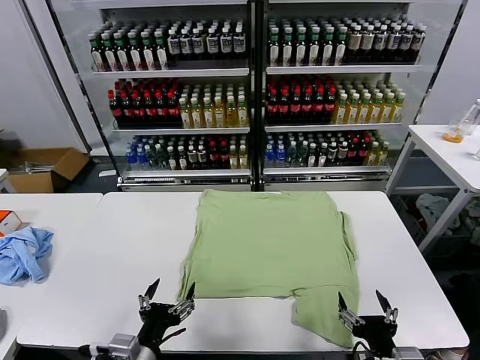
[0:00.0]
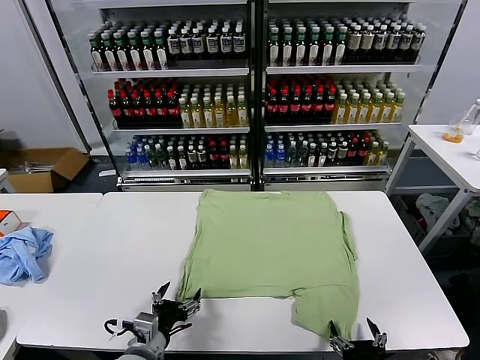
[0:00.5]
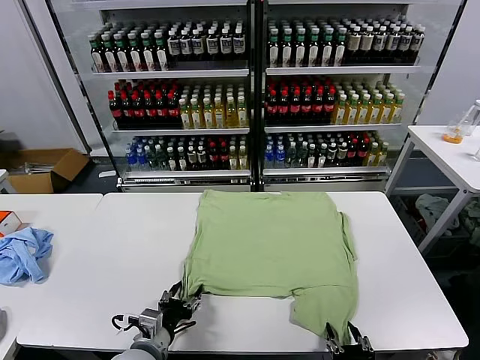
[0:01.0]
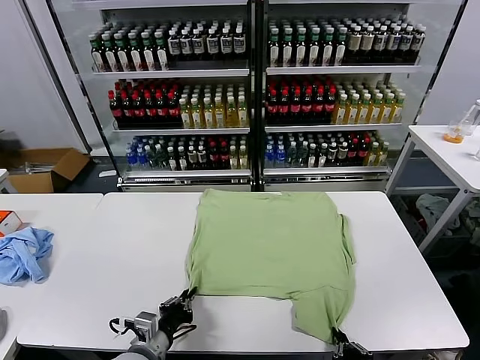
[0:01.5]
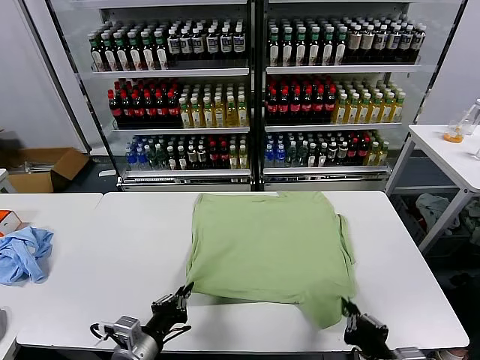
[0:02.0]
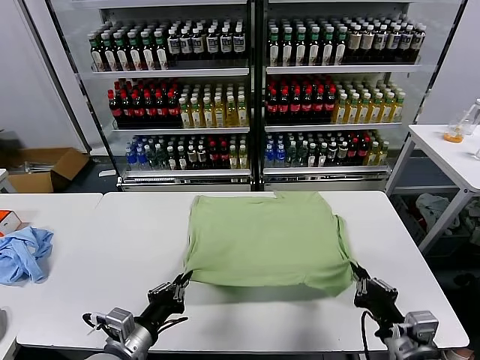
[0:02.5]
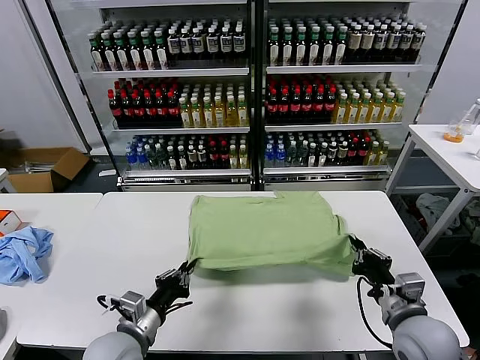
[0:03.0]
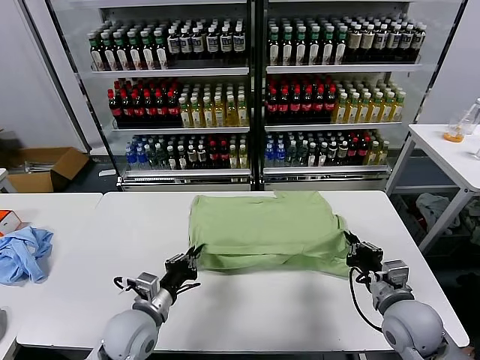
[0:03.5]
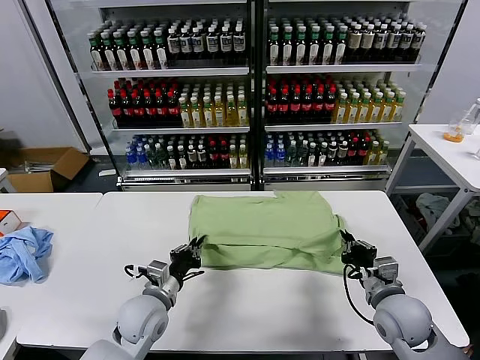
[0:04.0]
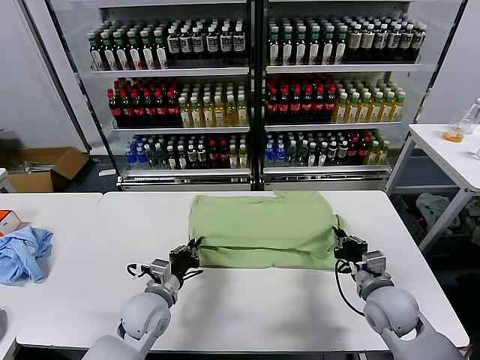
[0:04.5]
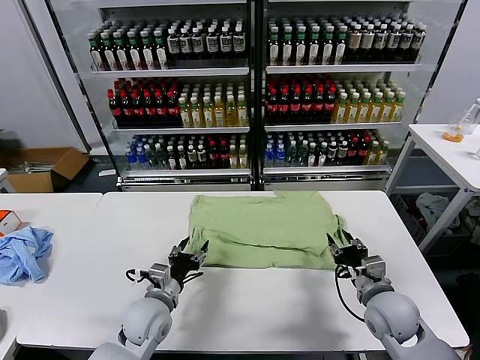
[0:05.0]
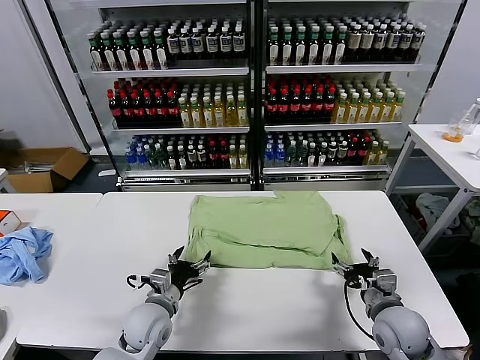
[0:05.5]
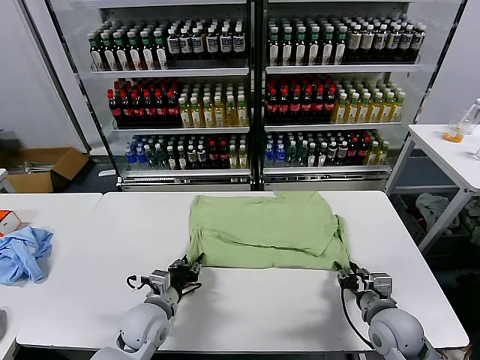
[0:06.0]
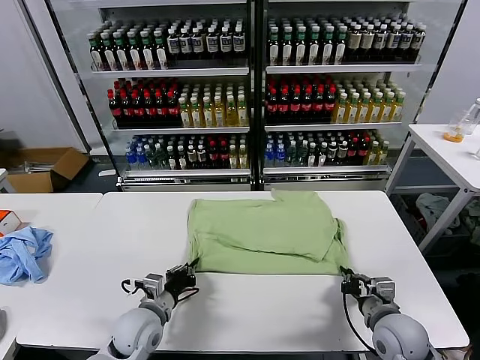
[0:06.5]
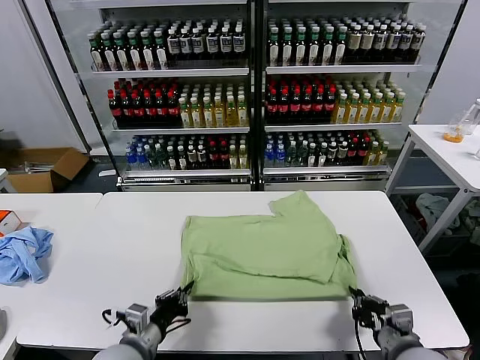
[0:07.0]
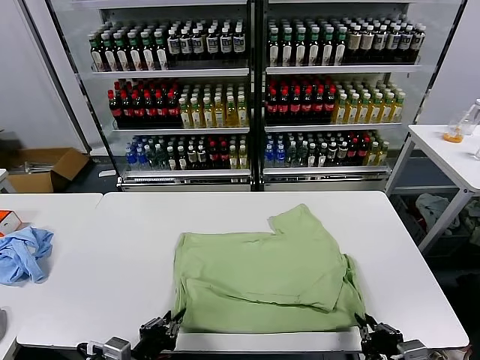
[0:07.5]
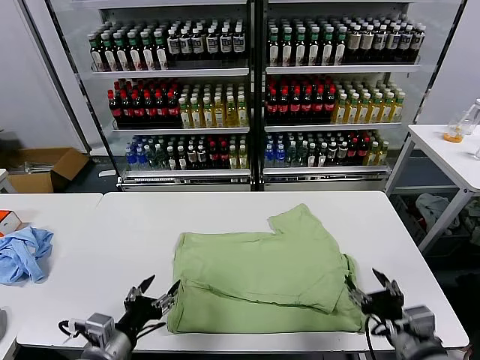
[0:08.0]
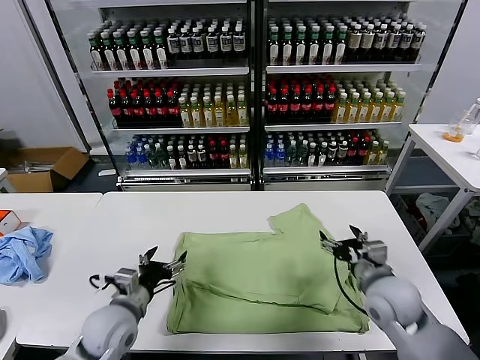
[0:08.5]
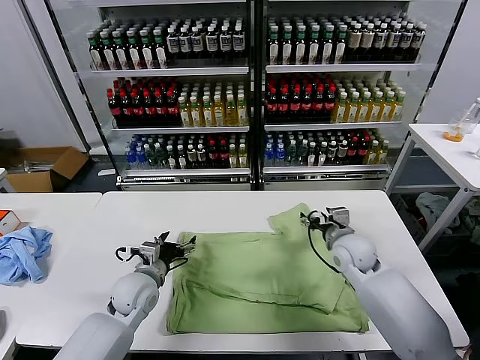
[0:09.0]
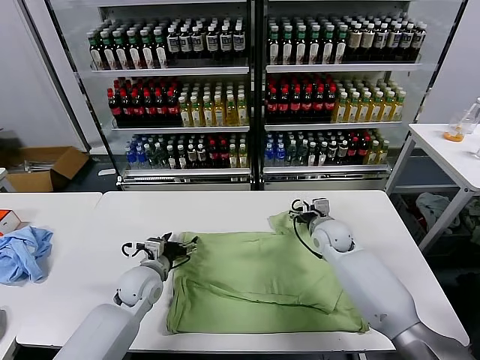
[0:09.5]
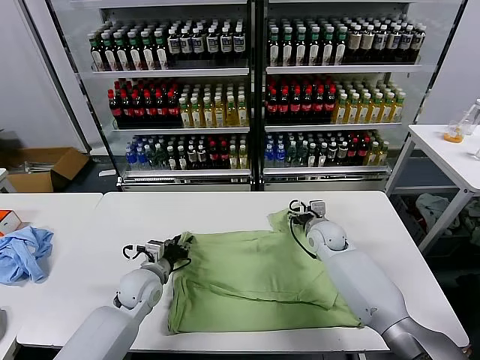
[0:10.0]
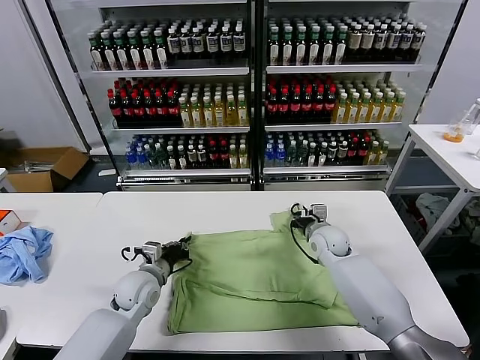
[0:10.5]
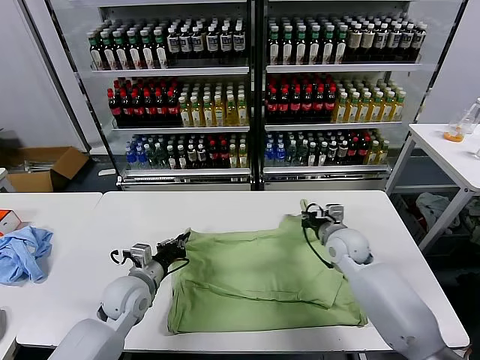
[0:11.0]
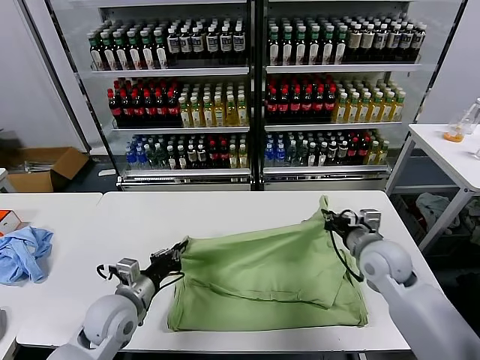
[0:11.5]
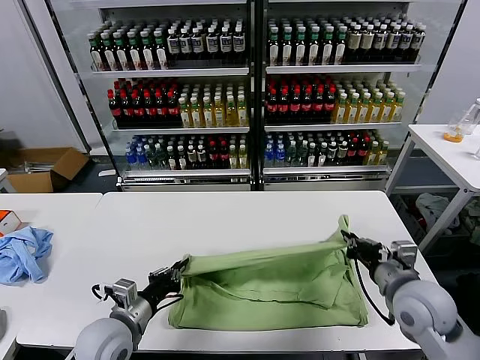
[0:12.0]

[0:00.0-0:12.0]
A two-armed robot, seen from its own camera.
Task of the whole recording: fold and organize the clothes.
Step, 0:00.0 to 0:01.5: use both grippers simultaneously to clamp the lower edge of the clothing fabric.
Step, 0:02.0 to 0:05.0: use both grippers to drag the lower edge of the fabric forward and fold it over the upper edge.
Step, 0:05.5 to 0:07.5: Drag the clothes downward with both gripper.
Step, 0:08.0 to 0:10.5: use both grippers simultaneously to clamp the upper edge of the clothing fabric.
0:02.0 to 0:04.0: The two grippers go some 15 cm forward.
0:04.0 to 0:06.0: The left gripper opens, then closes once more. Meanwhile the right gripper opens, then closes once more.
0:06.0 to 0:08.0: The left gripper goes about 15 cm backward and upward, and opens. Meanwhile the right gripper shifts approximately 15 cm upward and backward, and opens its fingers.
0:08.0 to 0:10.0: The left gripper travels forward by roughly 20 cm, and closes its fingers. Meanwhile the right gripper is displaced forward by roughly 30 cm.
0:10.0 to 0:12.0: The left gripper moves backward, some 15 cm, and closes. The right gripper shifts some 25 cm backward and upward, and closes its fingers.

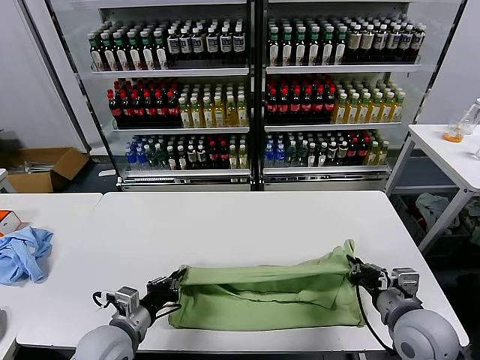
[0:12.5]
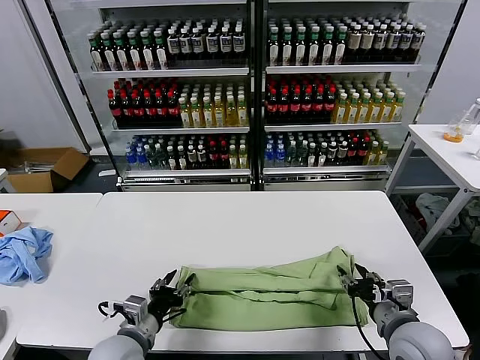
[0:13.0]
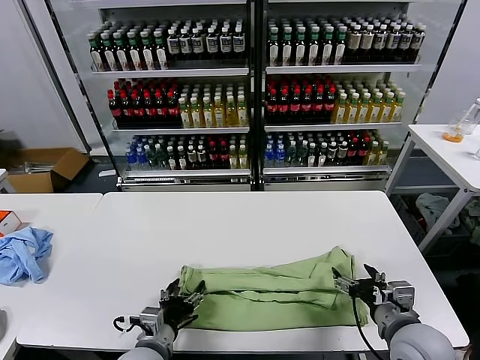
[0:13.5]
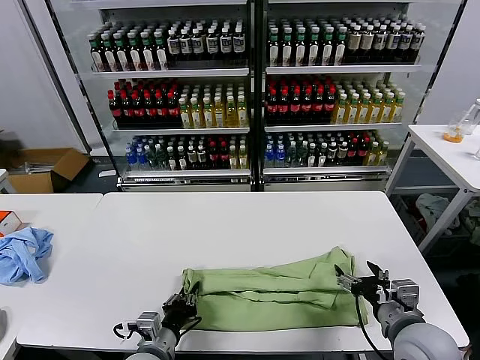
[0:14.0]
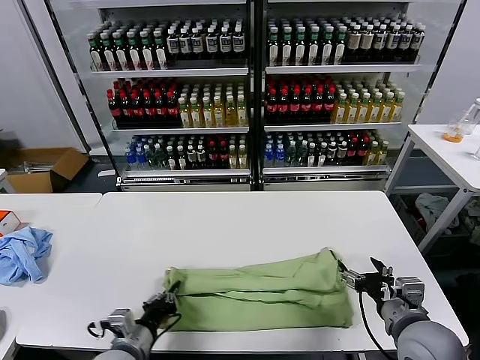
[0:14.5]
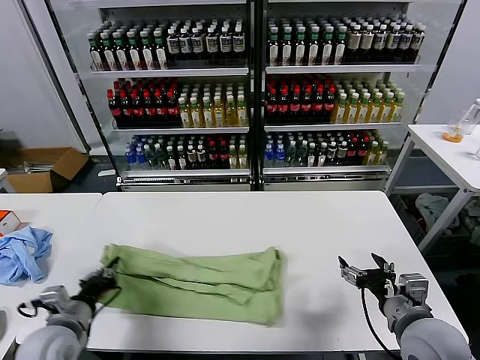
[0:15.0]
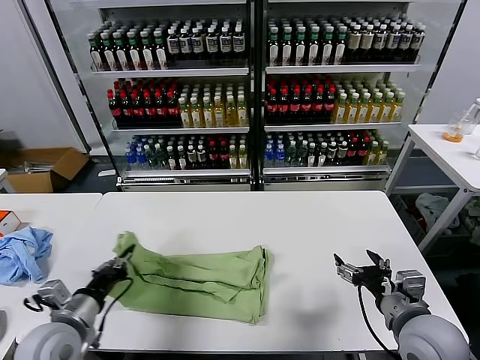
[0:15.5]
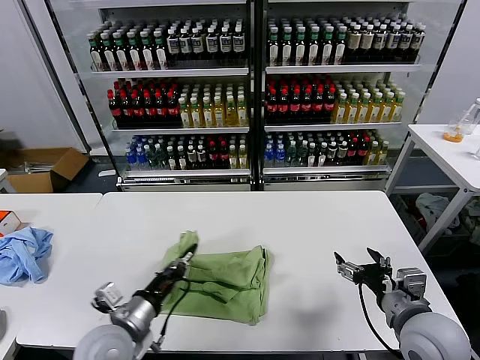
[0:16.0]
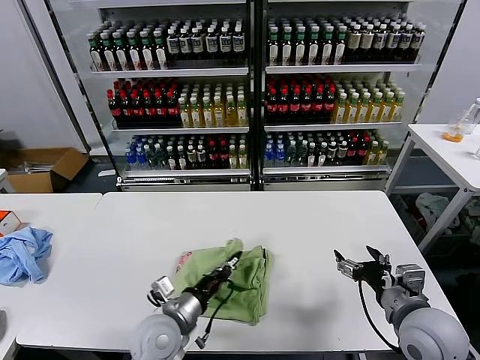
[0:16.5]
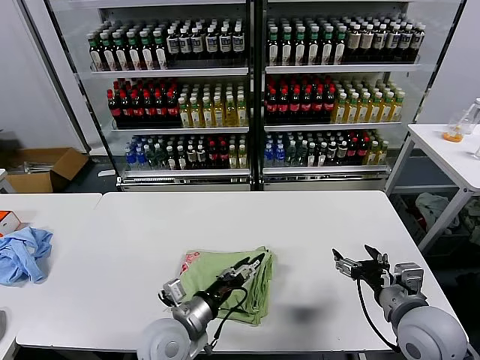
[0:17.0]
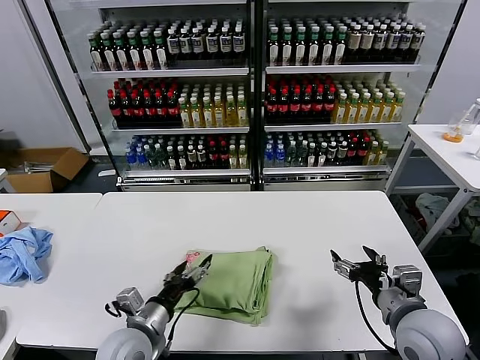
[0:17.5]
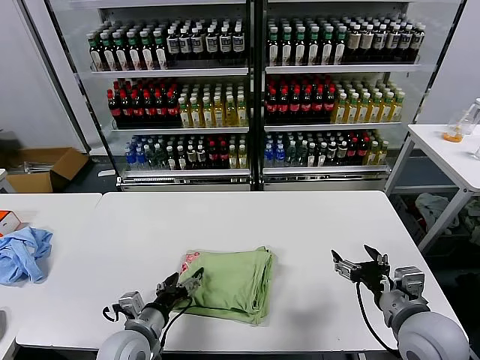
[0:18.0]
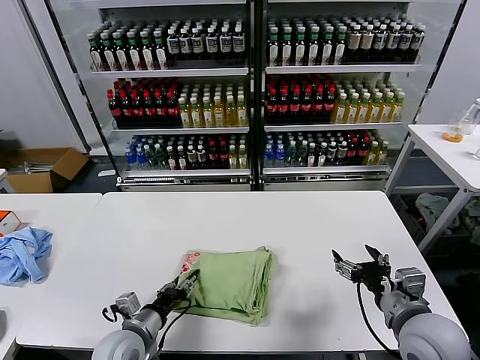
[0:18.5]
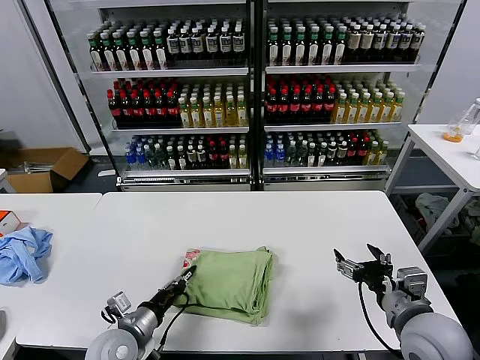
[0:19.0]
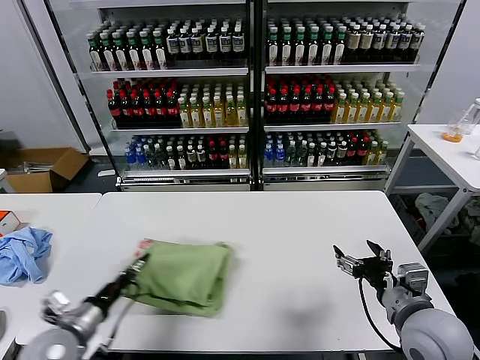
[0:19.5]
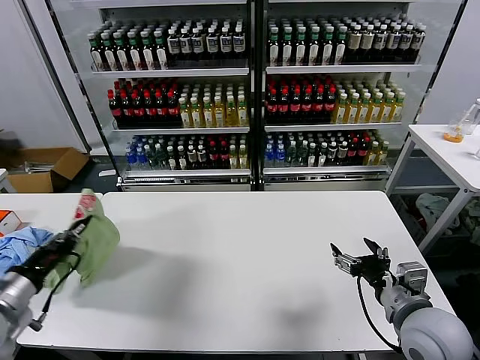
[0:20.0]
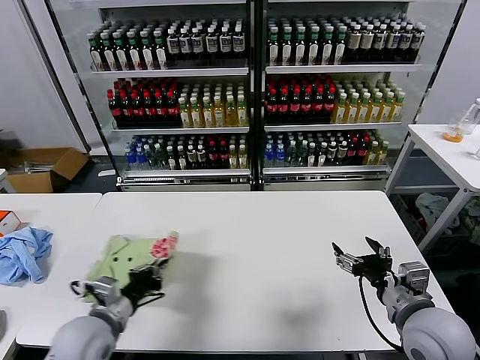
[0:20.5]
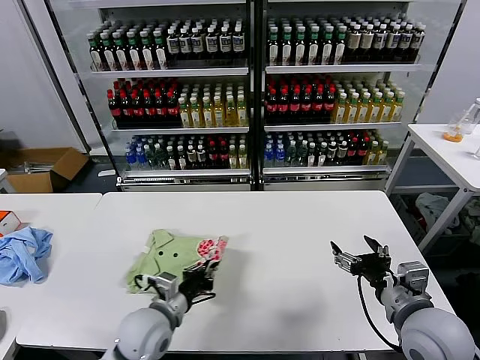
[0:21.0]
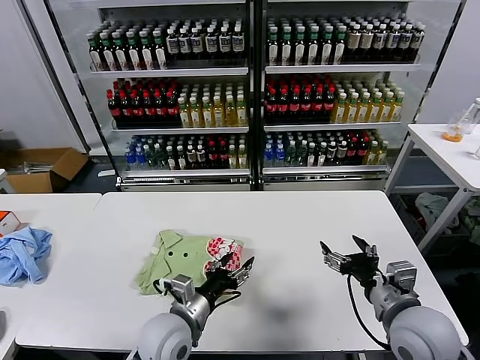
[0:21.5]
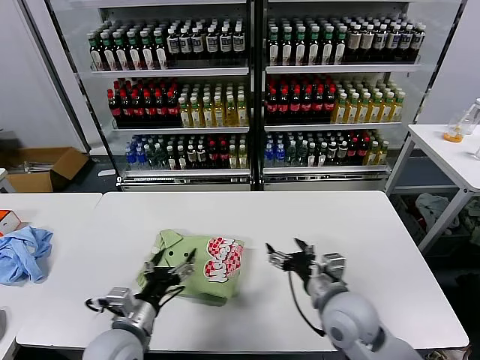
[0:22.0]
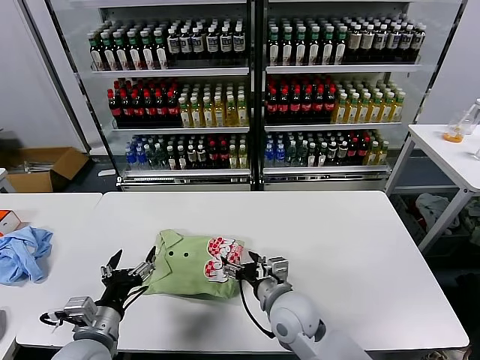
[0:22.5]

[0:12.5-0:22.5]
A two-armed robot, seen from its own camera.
Task of the whole recording: fold and organize the clothes.
Step, 0:13.5 to 0:14.0: use the left gripper to clamp the left edge of the fabric.
Step, 0:14.5 to 0:17.0: use the left gripper to drag the left edge of the fabric to the left and folds it over the right edge.
Step, 0:17.5 to 0:21.0: Flip the folded clothes over with left gripper.
0:12.5 to 0:14.5: The left gripper opens, then closes again. The right gripper opens its fingers.
0:14.5 to 0:16.5: The left gripper is displaced to the right and forward by approximately 10 cm.
0:16.5 to 0:18.5: The left gripper goes approximately 10 cm to the left, and opens.
0:18.5 to 0:20.5: The left gripper moves upward, approximately 5 cm, goes to the left and returns, some 20 cm each way, and closes up.
0:20.5 to 0:22.5: The right gripper goes some 20 cm to the left and downward. Meanwhile the left gripper reaches about 15 cm to the right, then returns, and opens up.

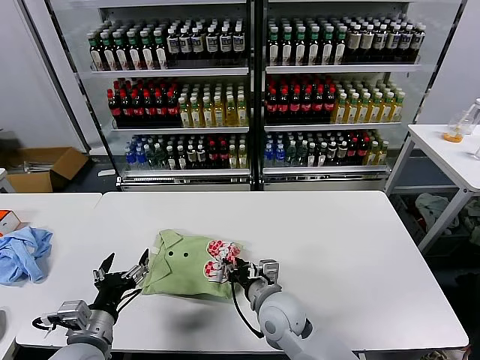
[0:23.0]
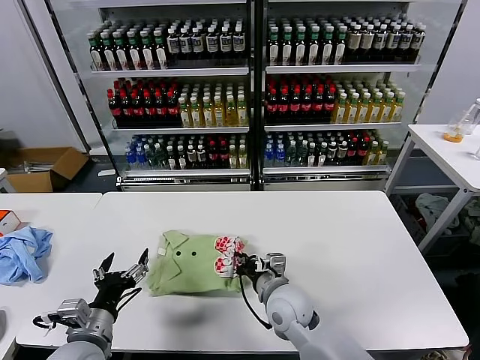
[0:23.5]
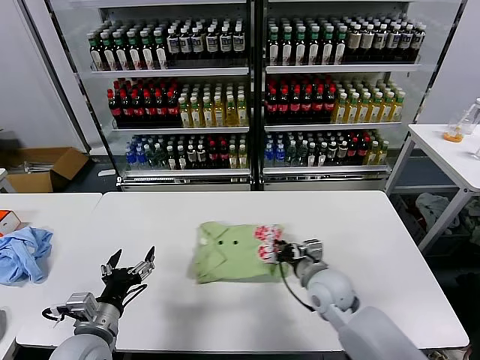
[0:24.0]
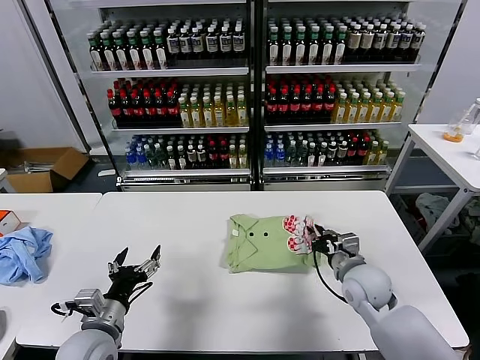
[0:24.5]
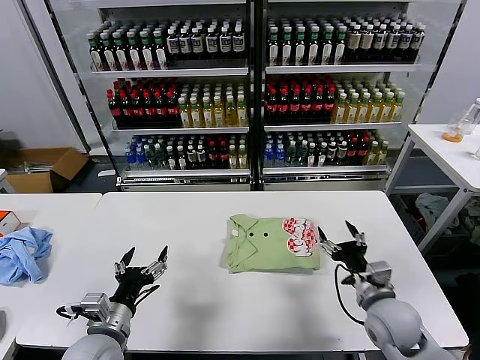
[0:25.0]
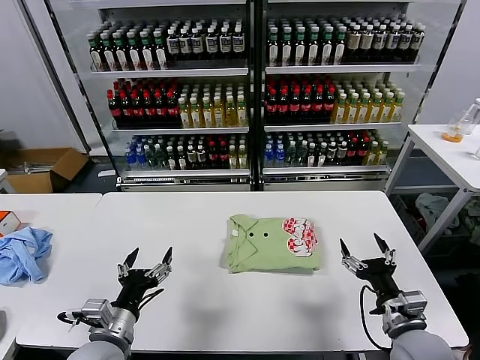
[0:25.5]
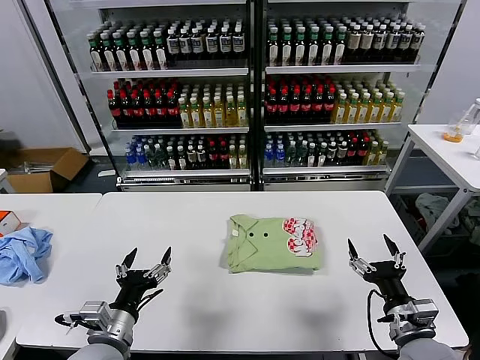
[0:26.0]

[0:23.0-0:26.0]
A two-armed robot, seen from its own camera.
Task of the whole recording: fold and organize the clothes.
Step, 0:23.0 to 0:24.5: Drag the clothes to the center of the table.
0:23.0 to 0:24.5: The right gripper heads to the right, covering roughly 20 cm.
0:24.5 to 0:26.0: The right gripper heads backward, covering approximately 15 cm, and opens up.
